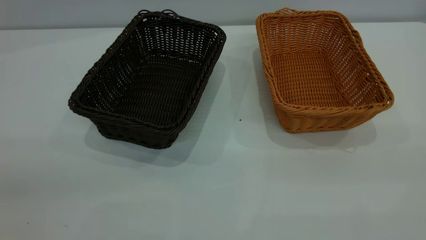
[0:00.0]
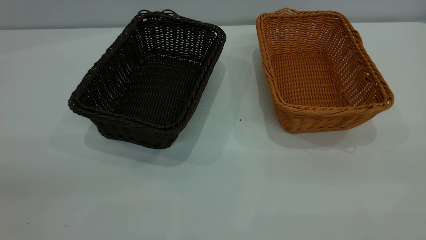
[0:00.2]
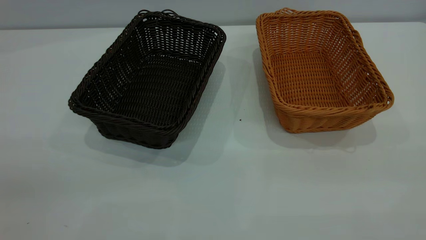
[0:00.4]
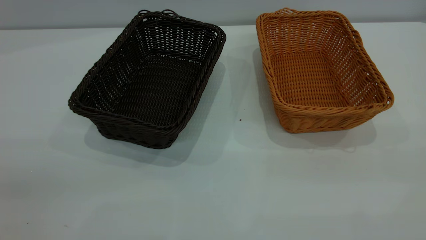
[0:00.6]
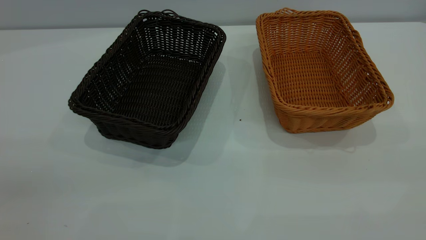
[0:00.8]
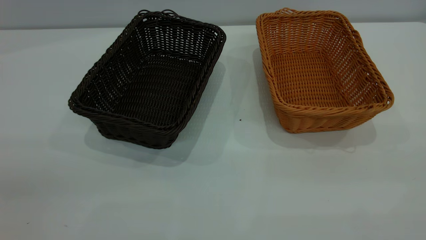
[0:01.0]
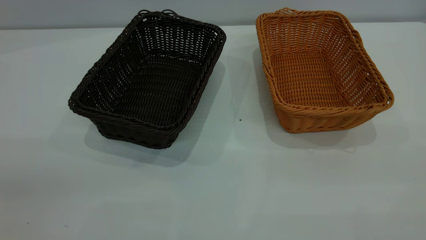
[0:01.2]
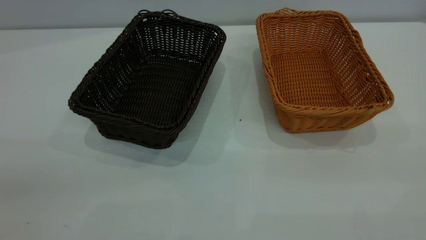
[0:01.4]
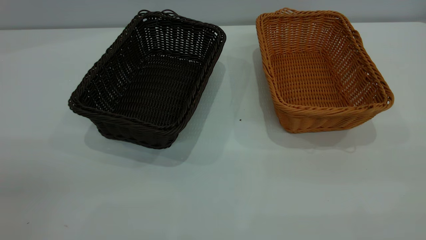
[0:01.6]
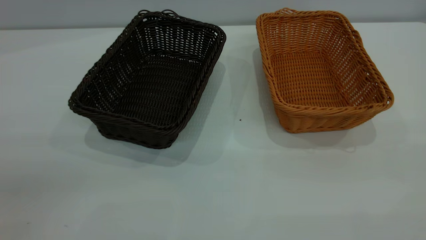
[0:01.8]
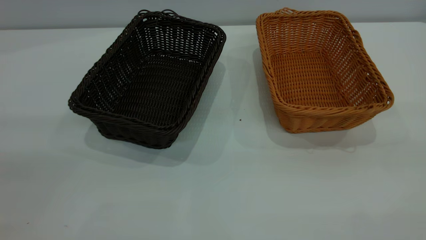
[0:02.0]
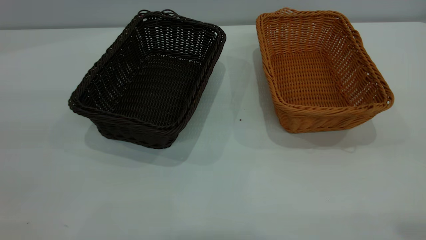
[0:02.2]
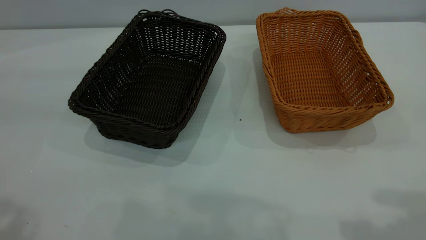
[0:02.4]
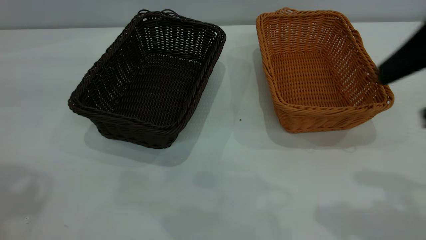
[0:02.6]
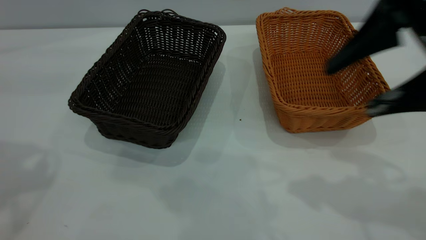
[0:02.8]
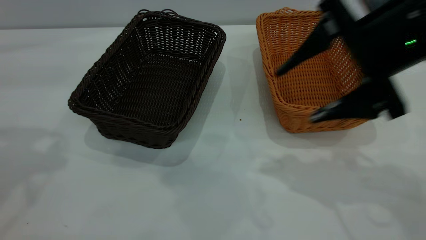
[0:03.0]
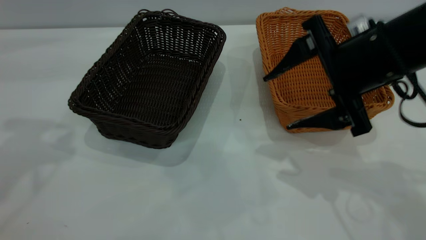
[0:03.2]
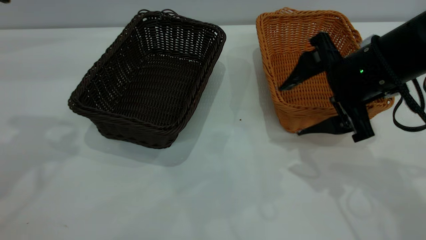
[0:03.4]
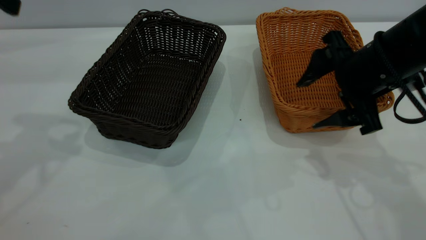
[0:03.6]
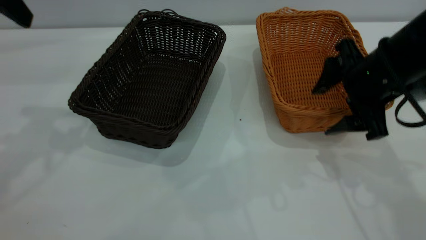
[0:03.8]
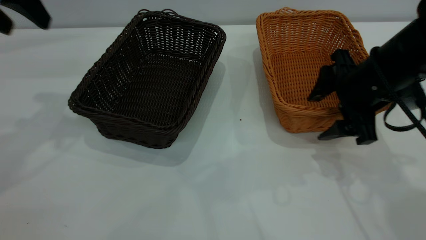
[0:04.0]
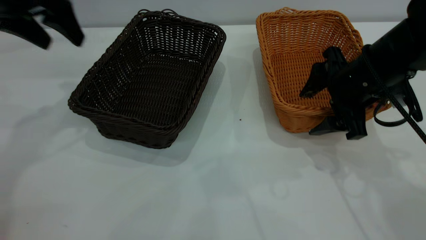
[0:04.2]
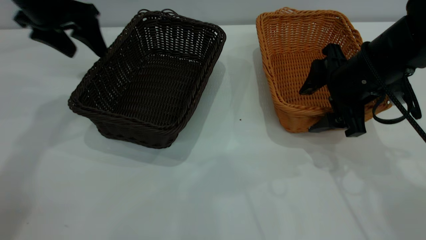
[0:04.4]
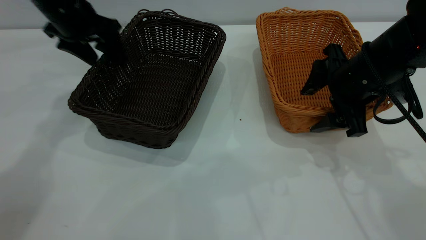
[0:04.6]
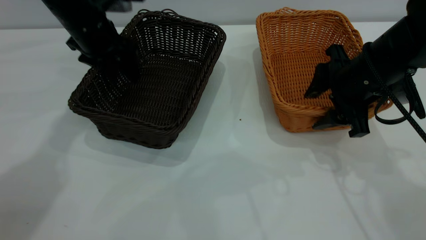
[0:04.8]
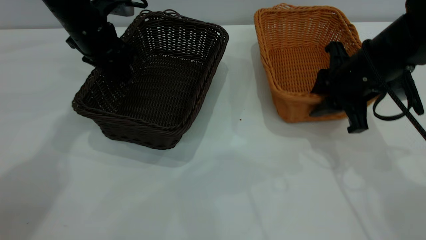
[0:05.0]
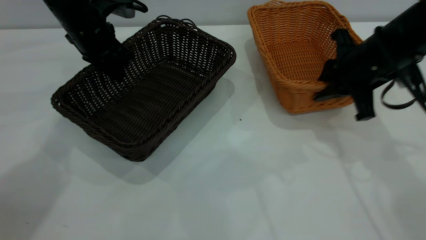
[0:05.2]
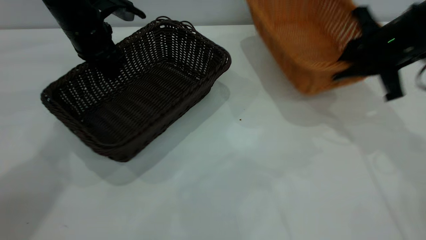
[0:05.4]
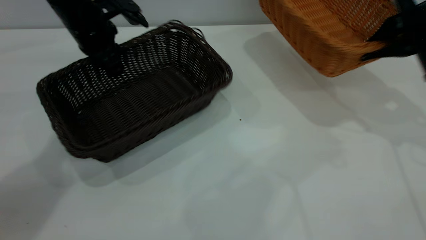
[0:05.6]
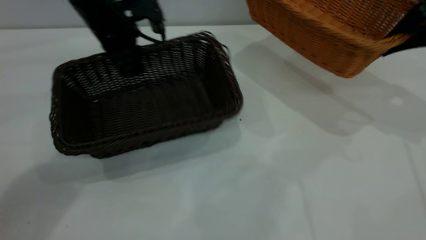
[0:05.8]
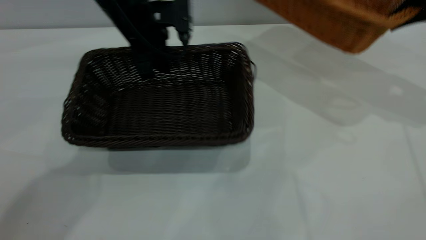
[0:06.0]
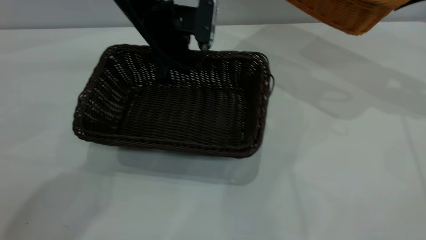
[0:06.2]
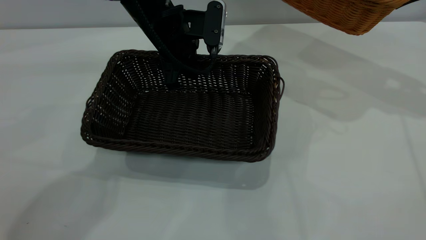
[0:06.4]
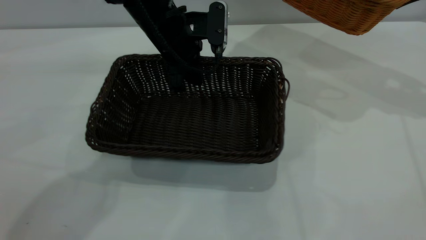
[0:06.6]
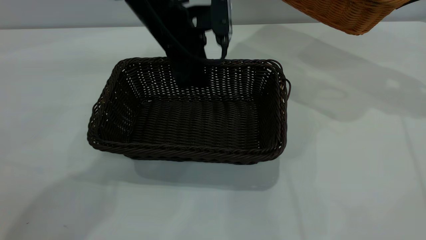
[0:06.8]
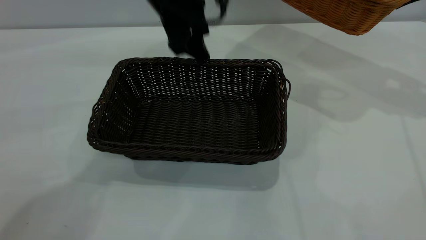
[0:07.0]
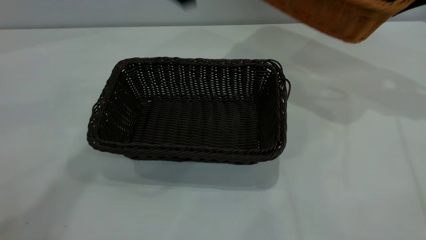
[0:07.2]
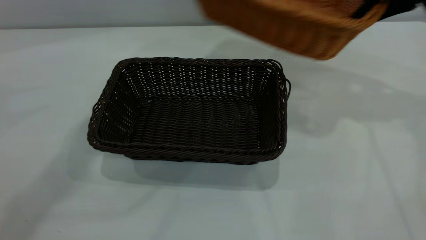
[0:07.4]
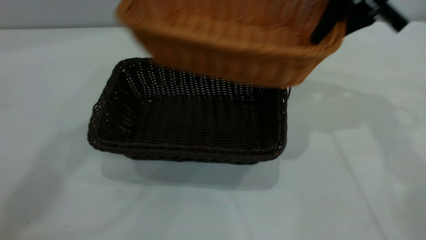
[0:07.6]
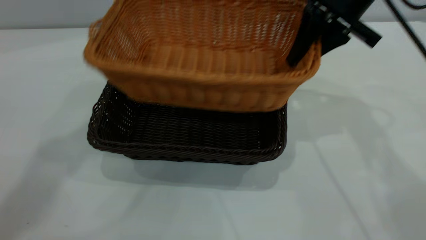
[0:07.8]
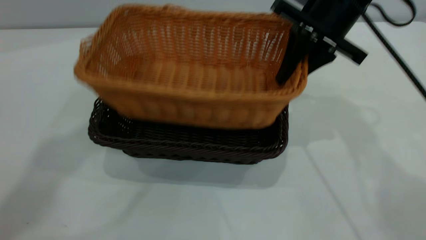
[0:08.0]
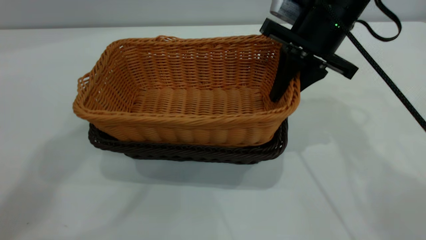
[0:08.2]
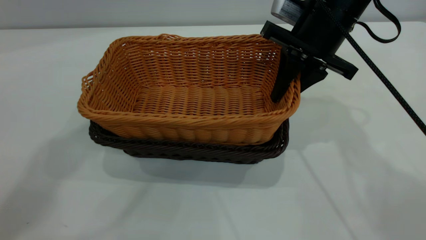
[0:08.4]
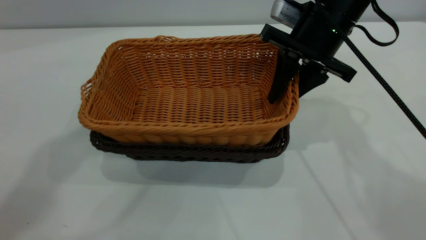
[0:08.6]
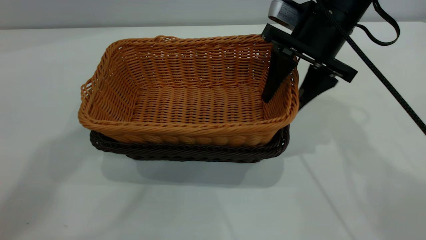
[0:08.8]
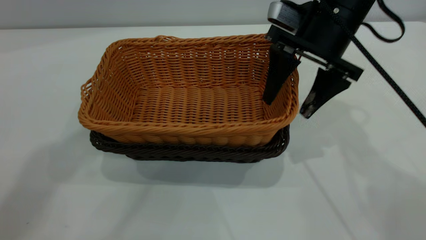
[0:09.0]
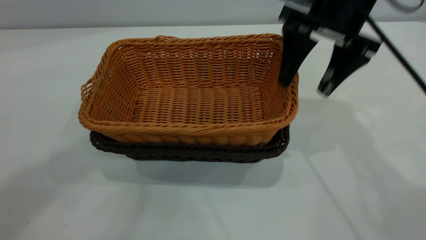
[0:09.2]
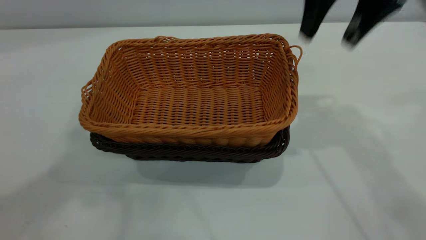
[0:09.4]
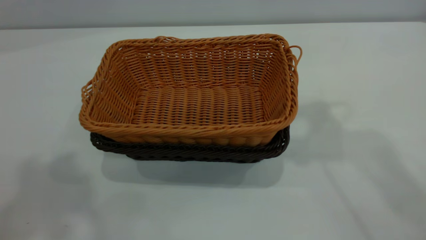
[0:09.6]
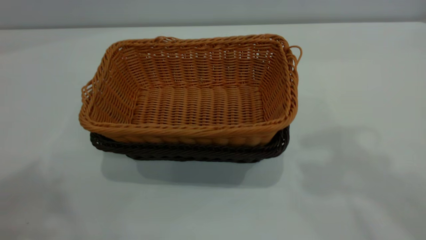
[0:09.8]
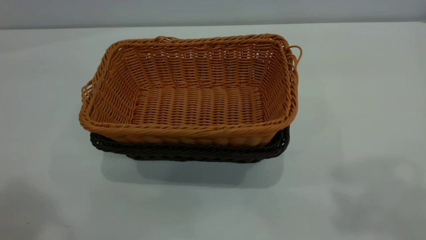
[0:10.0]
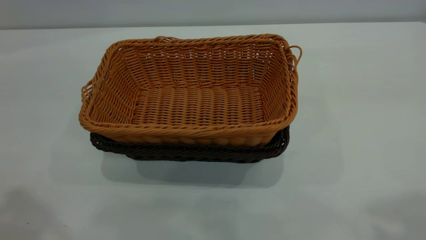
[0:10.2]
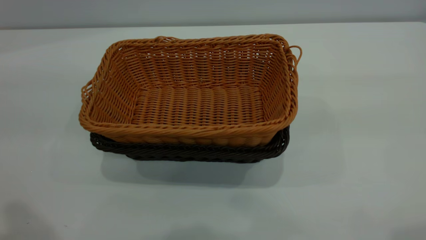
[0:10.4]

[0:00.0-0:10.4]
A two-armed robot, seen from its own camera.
Task of the whole recording: the left gripper grasp the black basket and place it in the center of the table, the right gripper grasp the brown basket and place it inside the black one.
Step, 0.0 to 5.4 s: Pick up the light basket with the right gripper.
Step, 5.6 to 6.8 s: Move the dark basket to the center of view.
Step, 7.2 to 9.2 s: Place the light basket on the dark basket.
0.0 to 1.4 s: Neither gripper changes place.
1.4 to 3.0 s: The right gripper is displaced forward and downward by approximately 30 cm.
3.0 to 4.4 s: The left gripper shifts roughly 20 cm forward and downward, while the right gripper travels downward and forward by roughly 10 cm.
4.4 to 6.0 s: The right gripper heads to the right, upward and forward, covering about 20 cm, and closes its fingers. Meanwhile the left gripper travels to the right by approximately 15 cm, and closes its fingers.
6.0 to 7.4 s: The right gripper goes approximately 10 cm to the left; the left gripper goes roughly 30 cm upward, and opens.
7.4 to 9.0 s: The left gripper goes approximately 5 cm upward; the right gripper moves to the left and downward, approximately 10 cm, and opens up.
9.0 to 10.4 s: The right gripper shifts approximately 35 cm backward, upward and to the right. Meanwhile the left gripper travels backward, downward and to the left by approximately 25 cm.

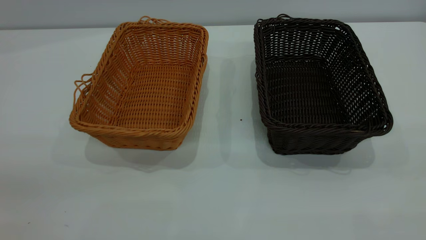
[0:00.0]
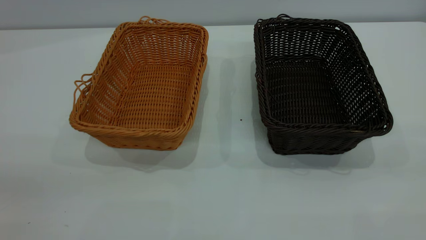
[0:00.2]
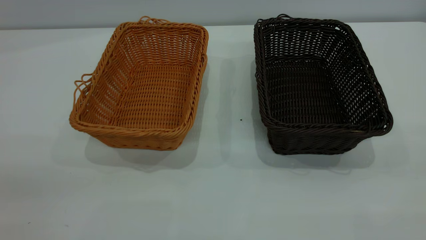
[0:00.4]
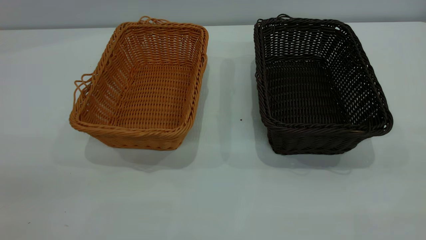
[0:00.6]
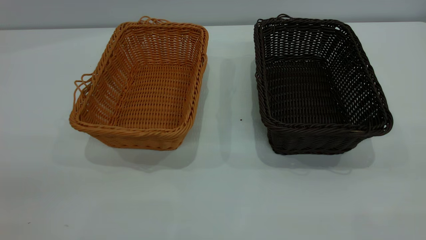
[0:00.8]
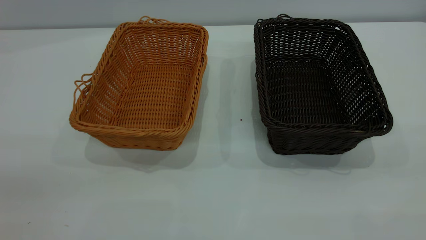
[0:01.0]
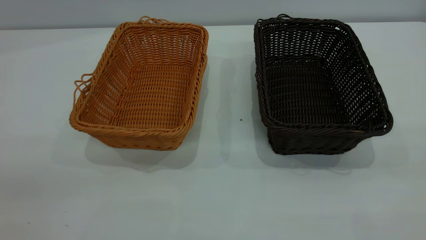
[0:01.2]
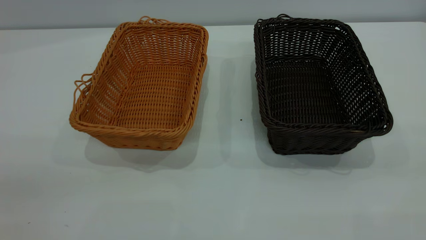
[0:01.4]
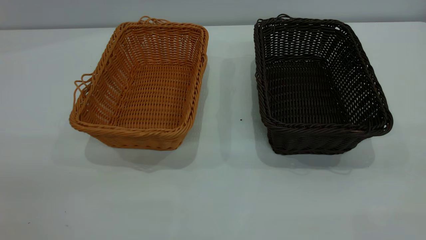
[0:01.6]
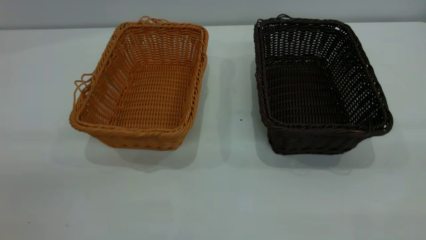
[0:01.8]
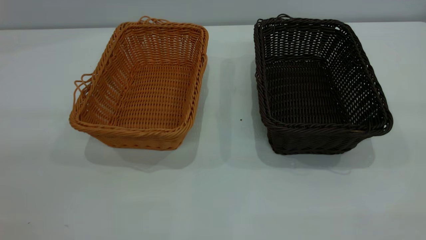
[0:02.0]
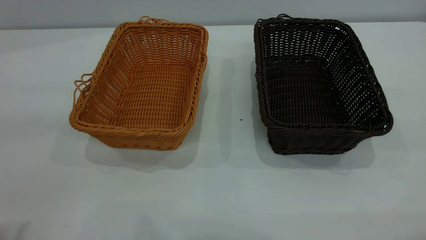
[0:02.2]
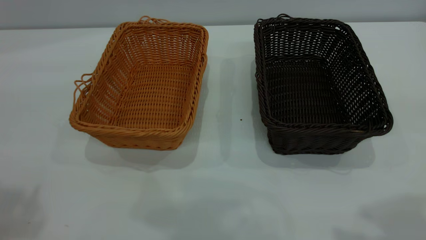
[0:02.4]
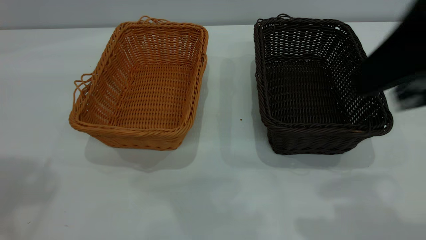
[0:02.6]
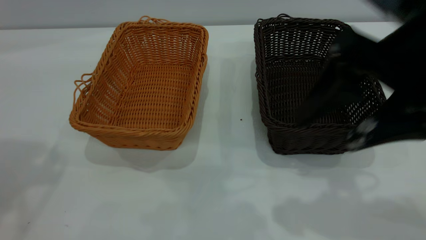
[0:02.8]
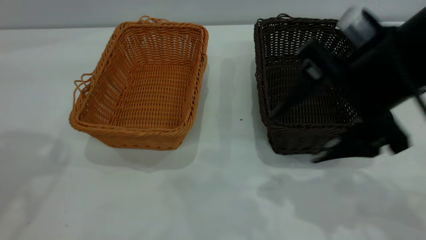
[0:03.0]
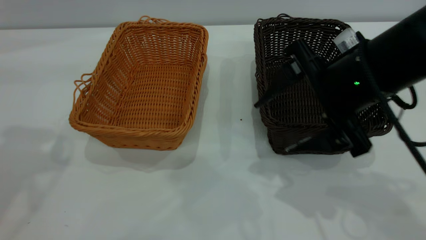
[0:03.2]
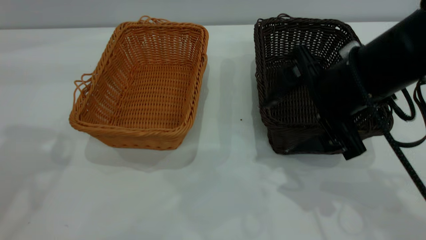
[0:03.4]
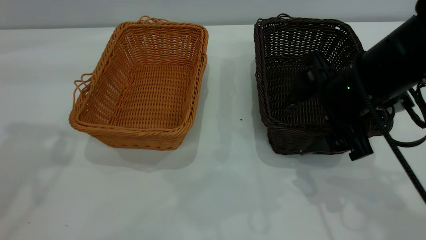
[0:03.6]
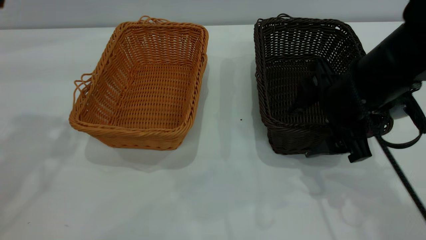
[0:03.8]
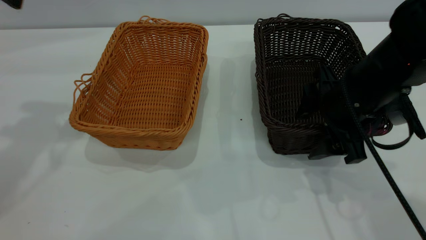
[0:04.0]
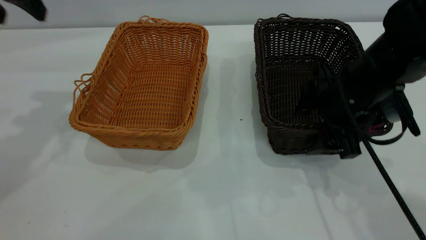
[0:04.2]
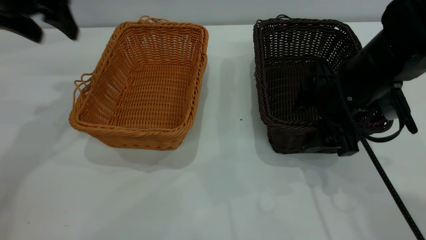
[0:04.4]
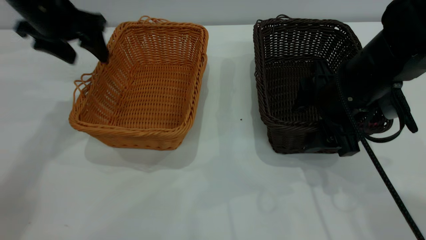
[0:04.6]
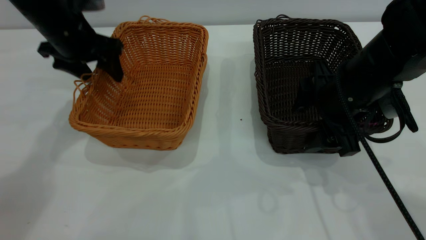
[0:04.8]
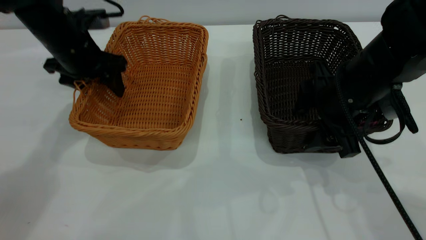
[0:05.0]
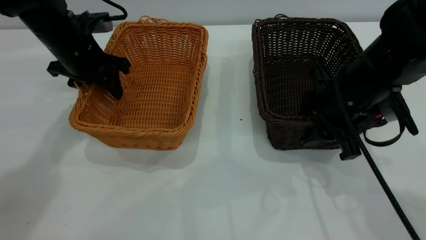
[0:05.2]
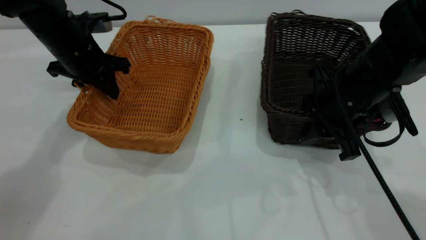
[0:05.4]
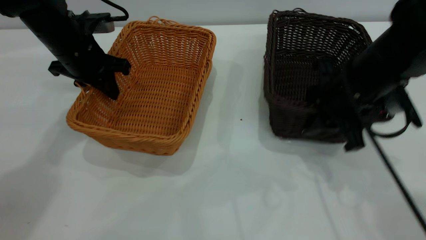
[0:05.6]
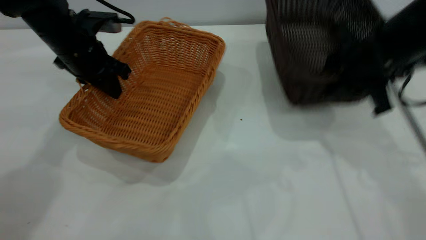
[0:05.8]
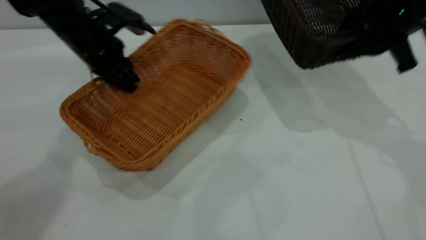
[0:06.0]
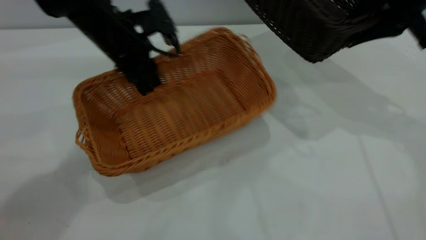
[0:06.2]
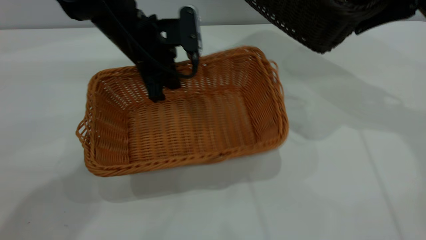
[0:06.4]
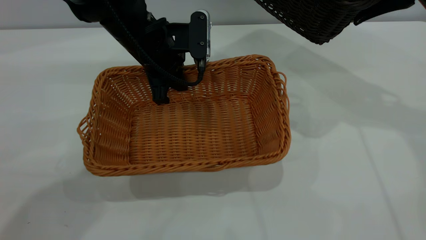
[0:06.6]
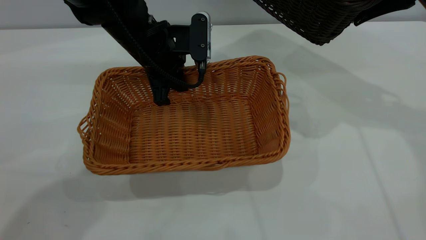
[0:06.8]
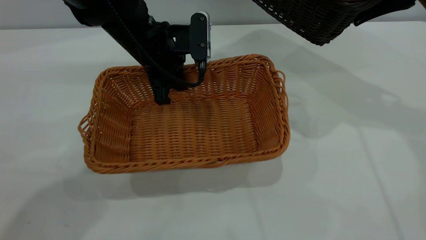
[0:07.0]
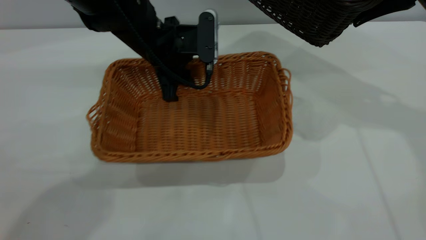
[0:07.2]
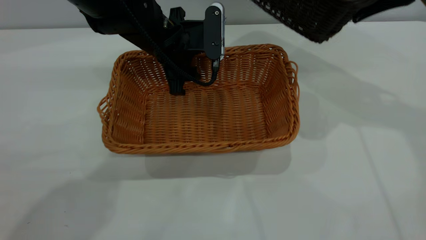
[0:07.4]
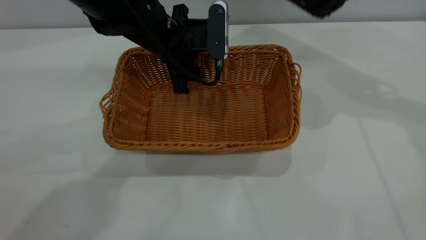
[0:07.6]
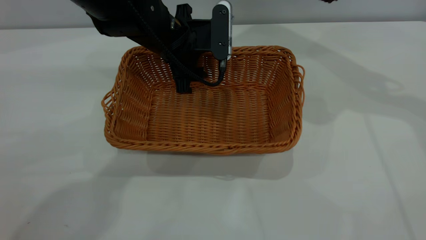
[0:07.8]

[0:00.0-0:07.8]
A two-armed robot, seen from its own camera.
Task of the whole recording: the left gripper grasp the brown basket and place it in the center of the table, the right gripper grasp the black basket and place it inside the brown one.
Step, 0.0 to 5.8 s: Pick up the light basket with the right gripper.
0.0 to 1.6 s: Both grippers stay put.
1.6 to 3.2 s: The right gripper travels forward, downward and to the left by roughly 35 cm.
3.2 to 4.6 s: The left gripper shifts about 20 cm downward and forward, while the right gripper travels downward by approximately 5 cm.
4.6 to 6.2 s: The right gripper is displaced upward, to the right and forward by some 15 cm, and closes; the left gripper travels to the right by about 10 cm, and closes up.
6.2 to 7.8 s: The right gripper shifts roughly 5 cm upward. Meanwhile the left gripper shifts roughly 5 cm to the right, and opens.
